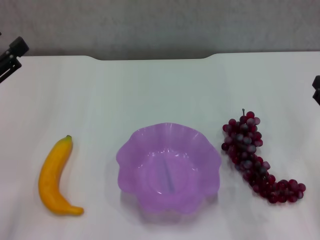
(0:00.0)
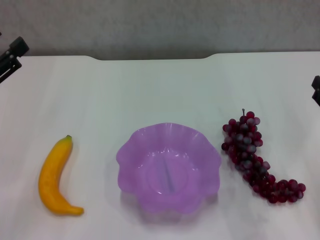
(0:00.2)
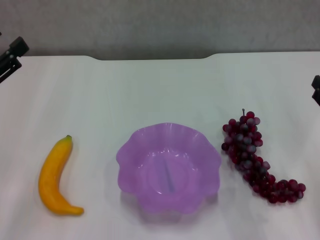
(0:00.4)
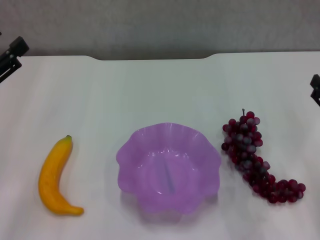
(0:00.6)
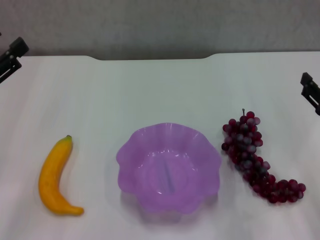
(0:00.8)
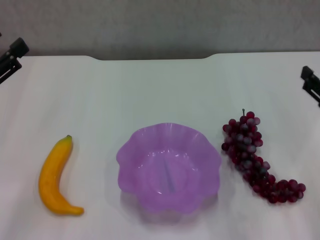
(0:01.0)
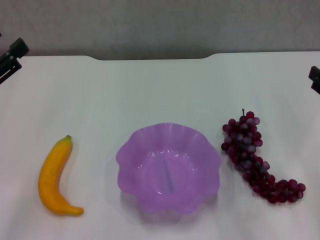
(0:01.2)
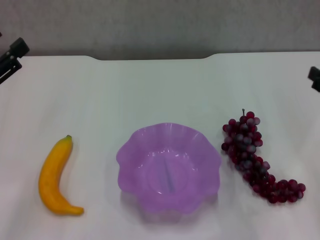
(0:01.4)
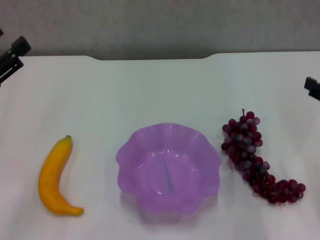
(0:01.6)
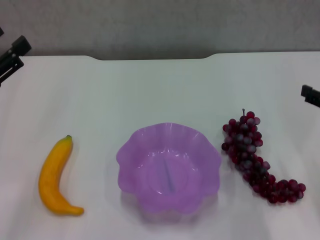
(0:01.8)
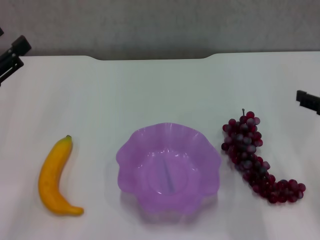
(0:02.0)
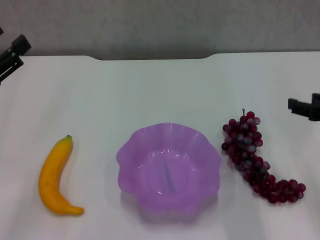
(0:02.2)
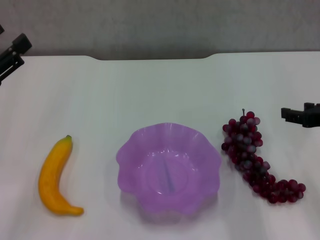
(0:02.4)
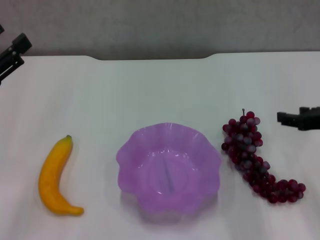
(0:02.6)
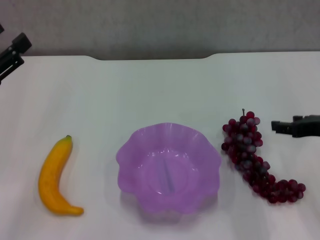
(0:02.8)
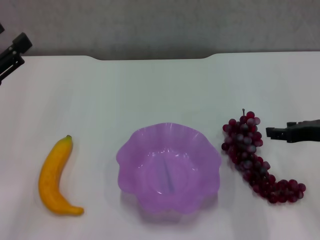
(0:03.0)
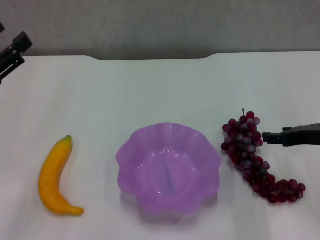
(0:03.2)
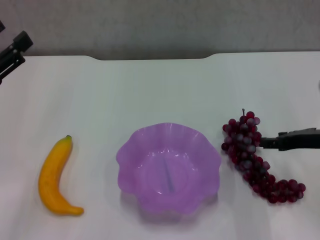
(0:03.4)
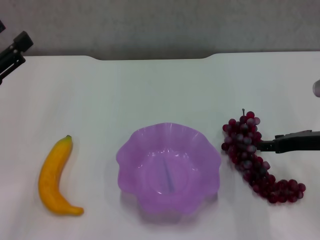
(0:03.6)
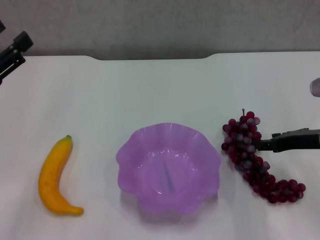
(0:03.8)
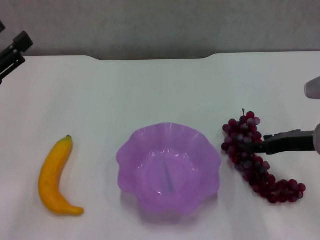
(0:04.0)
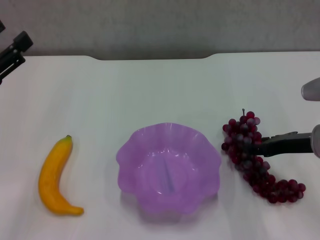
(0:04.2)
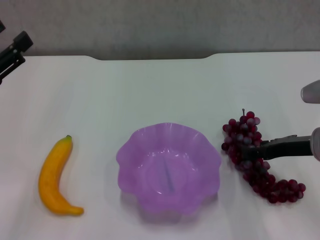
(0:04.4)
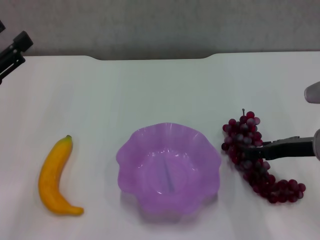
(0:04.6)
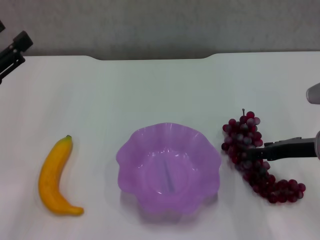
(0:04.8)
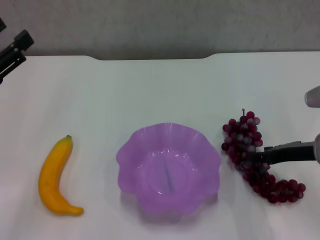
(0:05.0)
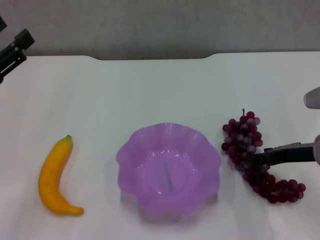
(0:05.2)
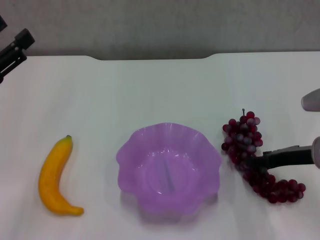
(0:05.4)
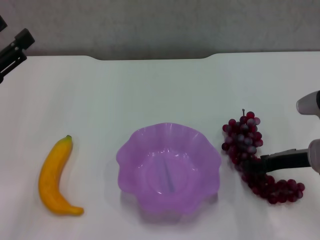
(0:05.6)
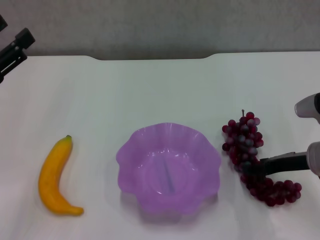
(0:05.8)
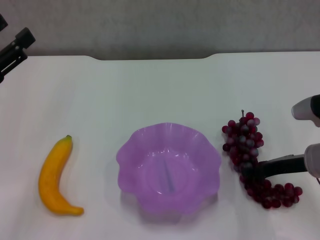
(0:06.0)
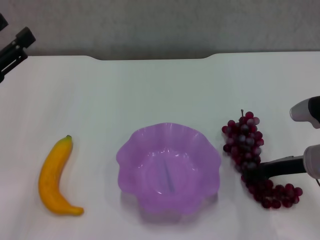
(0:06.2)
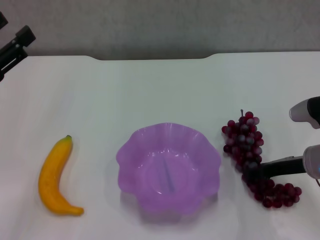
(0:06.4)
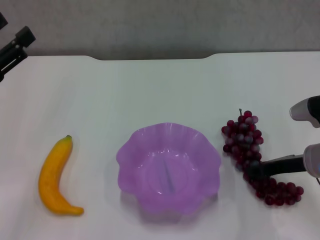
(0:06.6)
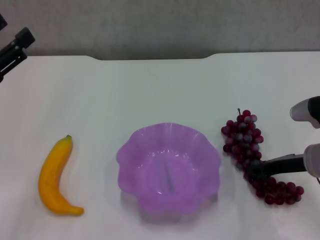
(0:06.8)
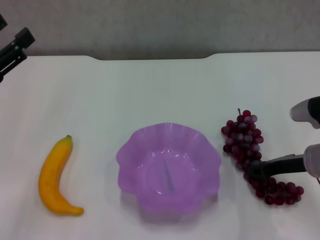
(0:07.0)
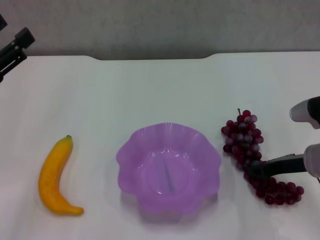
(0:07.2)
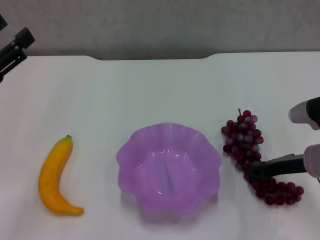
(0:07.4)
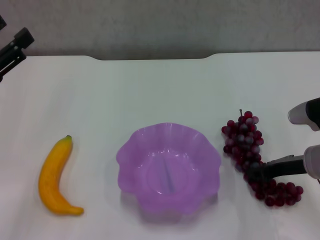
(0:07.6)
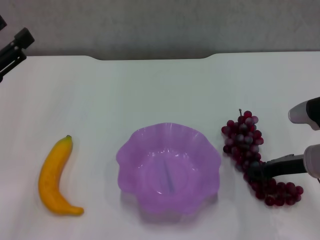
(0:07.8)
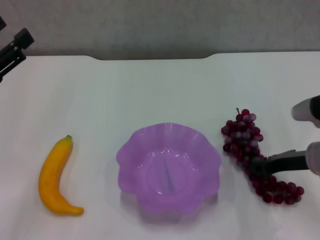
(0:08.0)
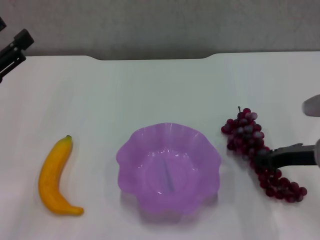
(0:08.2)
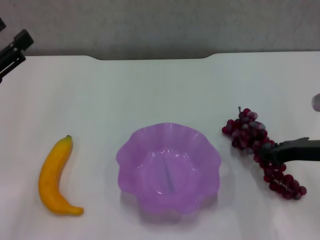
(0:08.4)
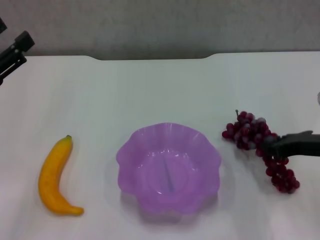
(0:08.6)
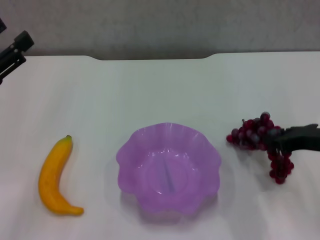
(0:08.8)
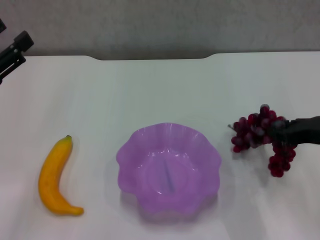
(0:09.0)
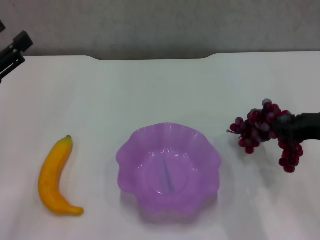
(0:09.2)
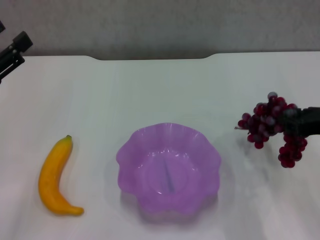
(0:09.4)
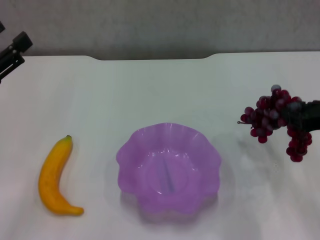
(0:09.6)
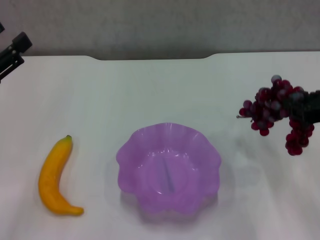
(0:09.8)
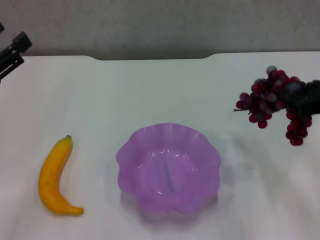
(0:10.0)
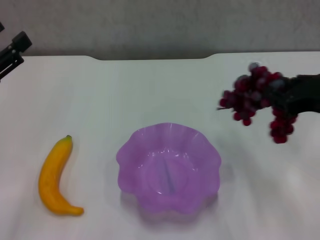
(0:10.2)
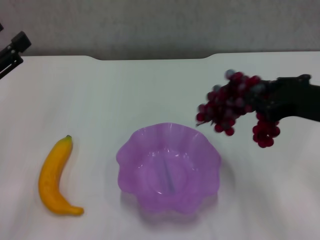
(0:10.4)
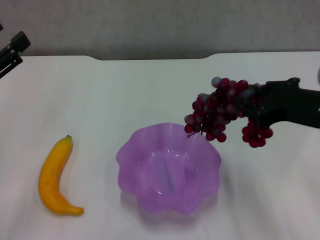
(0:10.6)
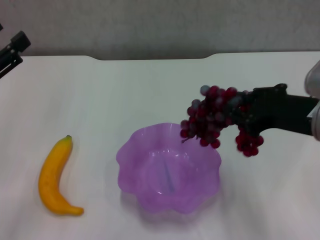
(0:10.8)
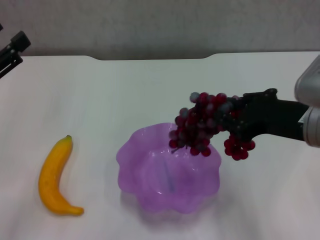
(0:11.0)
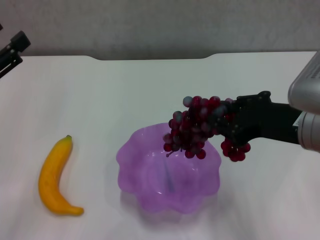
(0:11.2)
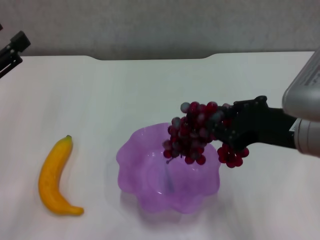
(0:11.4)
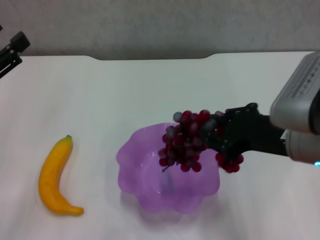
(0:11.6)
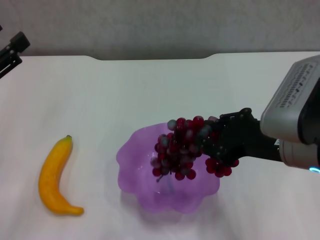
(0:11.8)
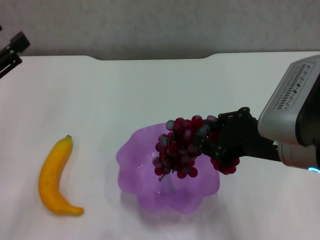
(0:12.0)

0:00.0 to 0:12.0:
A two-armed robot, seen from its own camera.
Step, 0:00.0 to 0:06.8: Grasp the grape with right gripper.
0:01.6 to 0:03.0: The right gripper is displaced forward by approximately 5 cm.
0:03.0 to 0:04.4: The grippers make only small movements.
0:04.4 to 0:06.0: There are only small adjustments of the grippers.
0:06.0 to 0:07.6: The right gripper closes.
0:07.6 to 0:09.0: The right gripper travels upward by roughly 10 cm.
0:09.0 to 0:10.4: The right gripper shifts approximately 10 cm upward and to the left.
0:10.4 to 0:12.0: The right gripper travels to the left by some 5 cm.

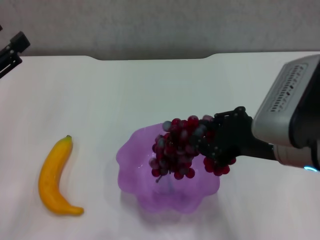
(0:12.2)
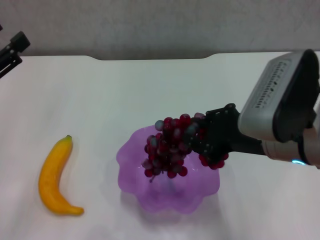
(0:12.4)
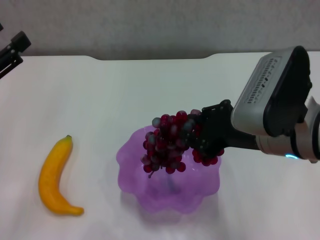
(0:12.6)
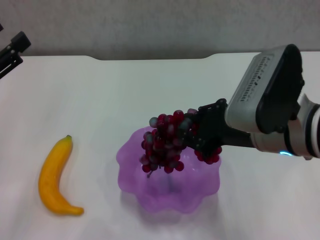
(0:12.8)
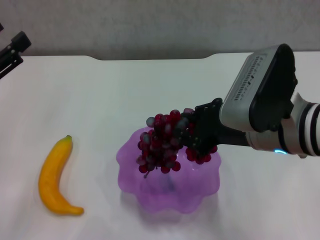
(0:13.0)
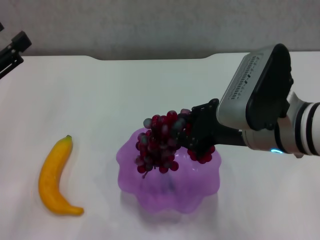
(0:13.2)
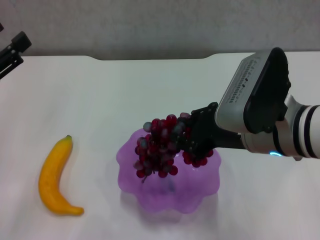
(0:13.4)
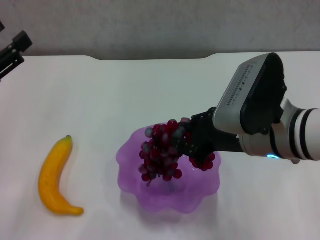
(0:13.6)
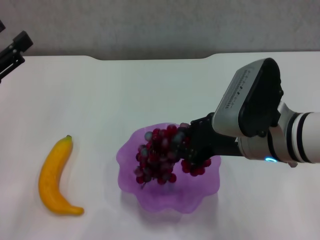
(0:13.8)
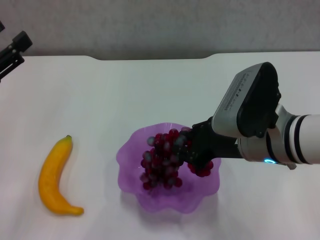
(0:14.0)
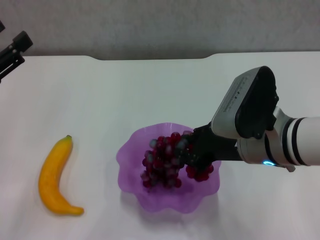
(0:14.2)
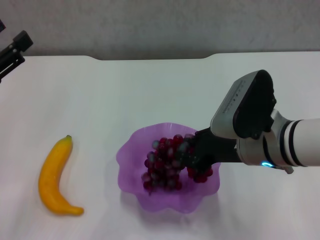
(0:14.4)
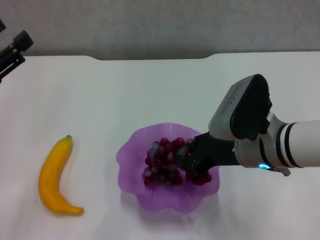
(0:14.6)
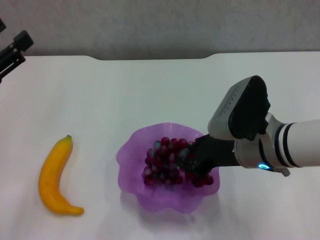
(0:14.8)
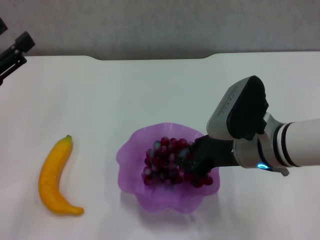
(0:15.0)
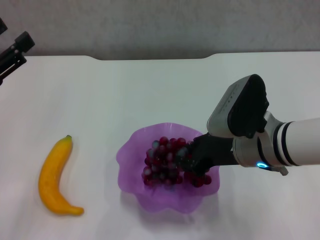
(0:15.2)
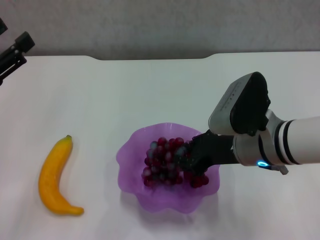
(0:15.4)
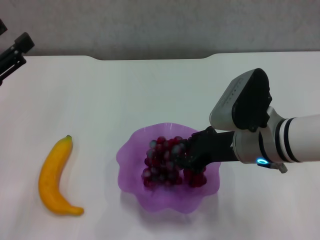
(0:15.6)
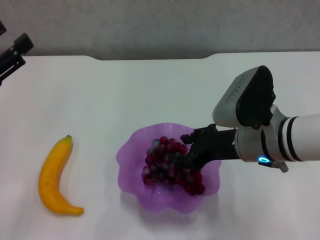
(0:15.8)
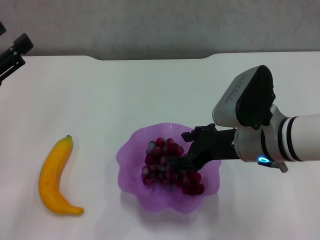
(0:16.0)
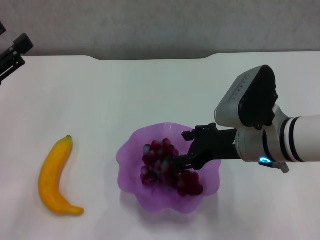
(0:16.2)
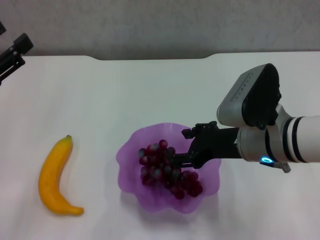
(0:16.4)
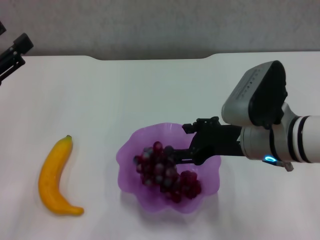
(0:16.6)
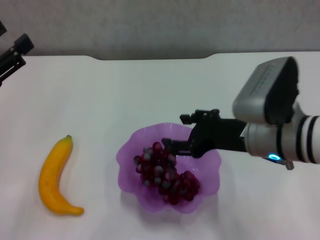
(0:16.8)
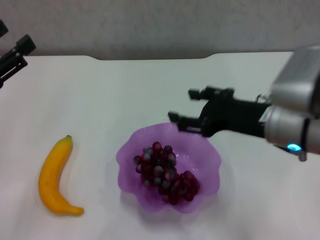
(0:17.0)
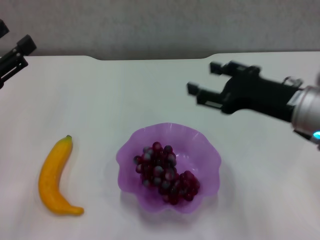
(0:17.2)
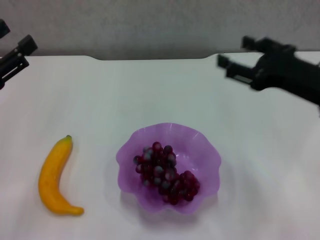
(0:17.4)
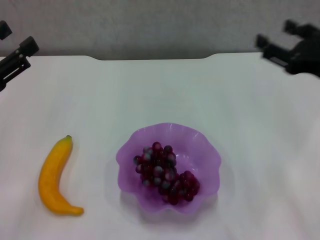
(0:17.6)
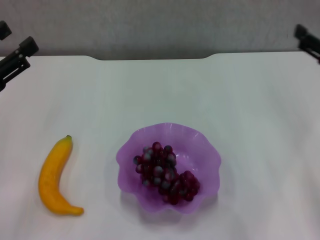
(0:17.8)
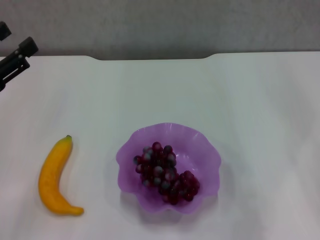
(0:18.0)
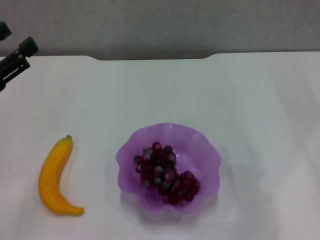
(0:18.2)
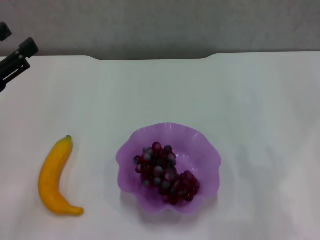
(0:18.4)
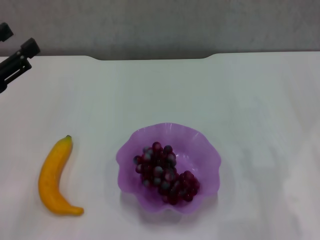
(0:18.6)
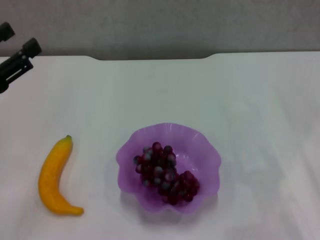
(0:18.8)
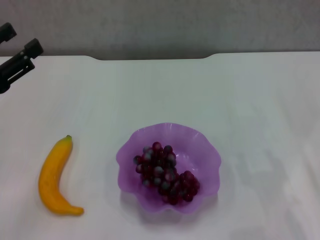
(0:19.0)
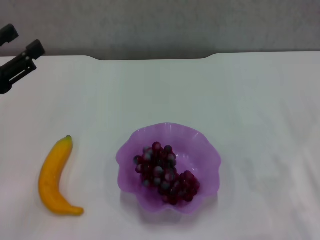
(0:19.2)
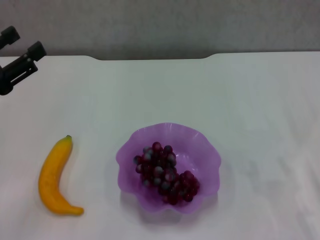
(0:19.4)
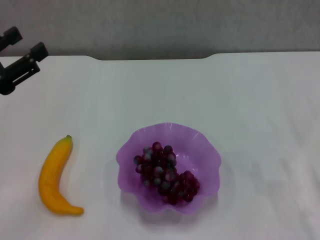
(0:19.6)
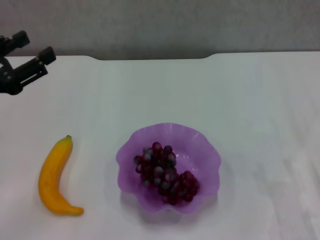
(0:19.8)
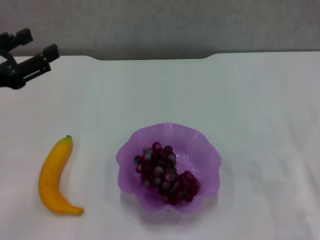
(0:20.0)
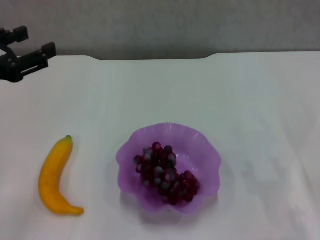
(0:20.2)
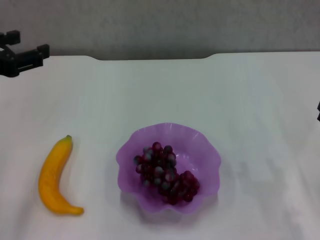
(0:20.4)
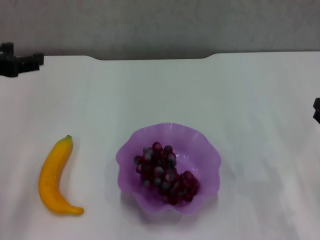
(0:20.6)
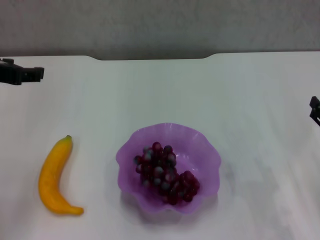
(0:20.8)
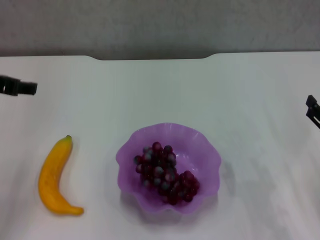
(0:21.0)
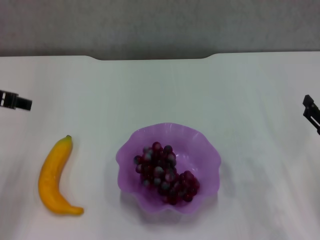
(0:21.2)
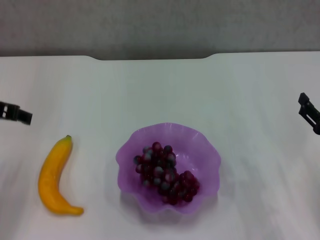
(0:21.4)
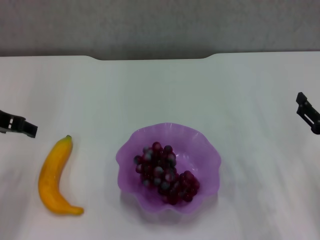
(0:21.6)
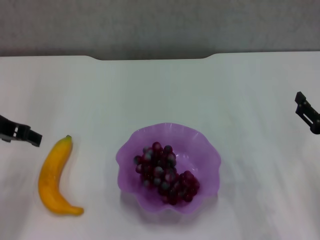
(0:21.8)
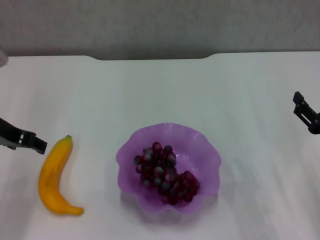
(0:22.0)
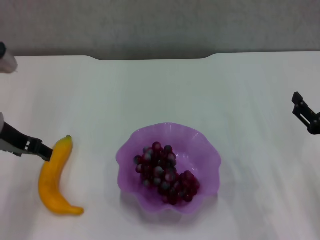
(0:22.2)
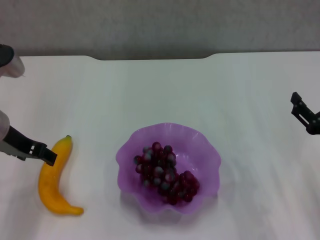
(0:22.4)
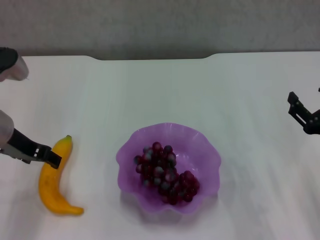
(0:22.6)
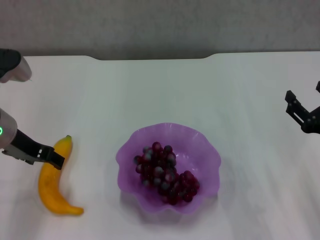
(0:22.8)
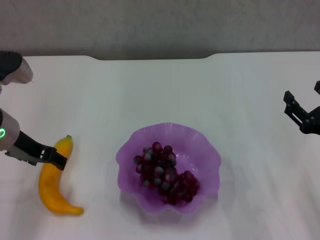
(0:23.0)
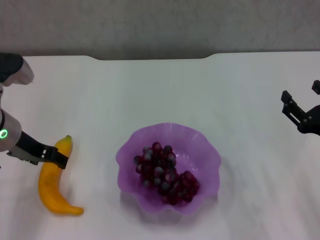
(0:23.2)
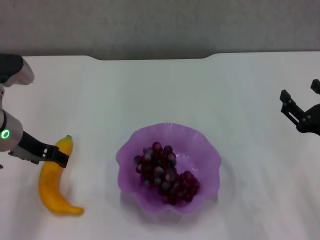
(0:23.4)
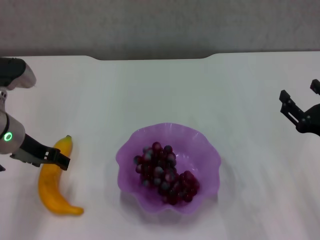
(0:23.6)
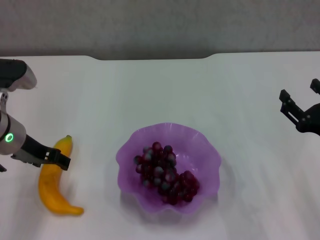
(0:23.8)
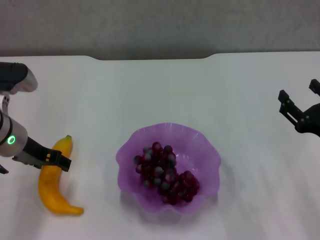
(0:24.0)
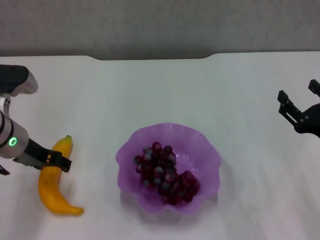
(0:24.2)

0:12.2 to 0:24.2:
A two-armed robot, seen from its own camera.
Step, 0:12.2 to 0:16.8: Place the grape in the purple plate with right gripper.
0:12.2 to 0:13.8: The right gripper shifts by about 5 cm.
0:13.8 to 0:15.2: The grippers move only a little.
0:15.2 to 0:16.6: The right gripper opens its fingers.
0:16.6 to 0:18.2: The right gripper travels to the right by roughly 20 cm.
0:19.8 to 0:21.2: The left gripper travels forward by about 5 cm.
0:21.2 to 0:22.6: The left gripper heads downward, covering about 5 cm.
0:22.6 to 0:24.2: The grippers move only a little.
